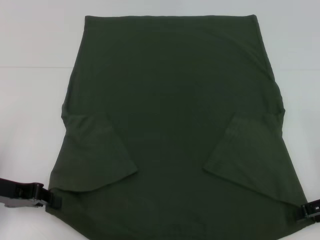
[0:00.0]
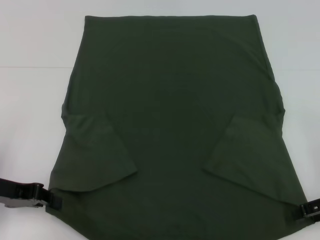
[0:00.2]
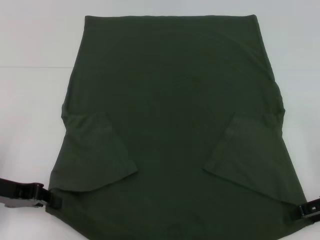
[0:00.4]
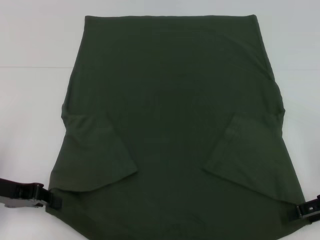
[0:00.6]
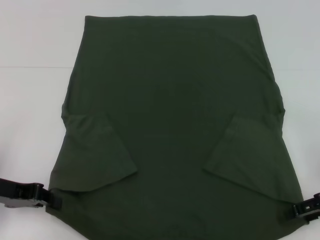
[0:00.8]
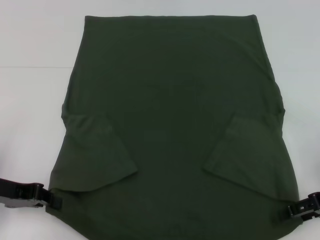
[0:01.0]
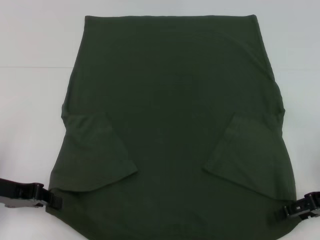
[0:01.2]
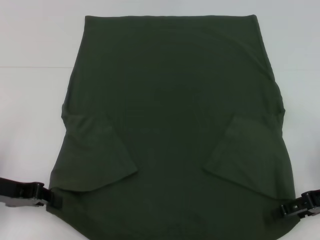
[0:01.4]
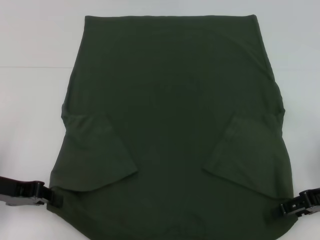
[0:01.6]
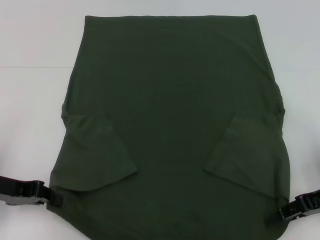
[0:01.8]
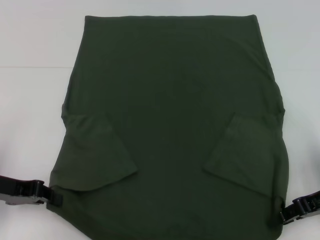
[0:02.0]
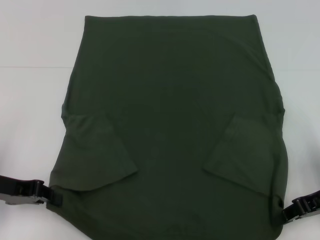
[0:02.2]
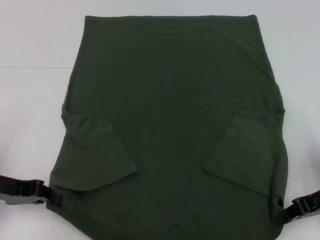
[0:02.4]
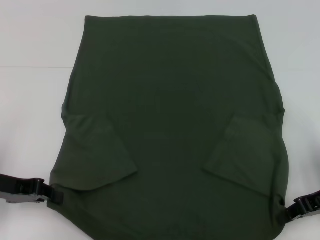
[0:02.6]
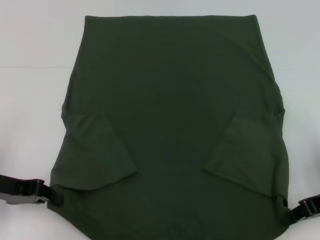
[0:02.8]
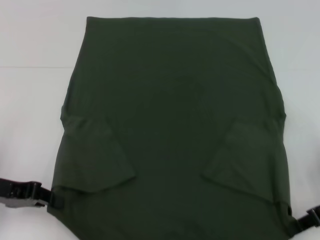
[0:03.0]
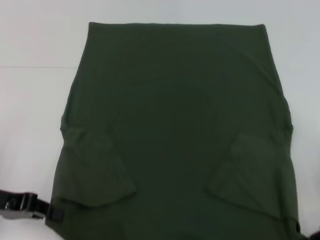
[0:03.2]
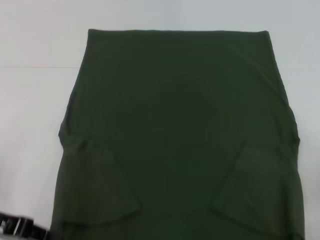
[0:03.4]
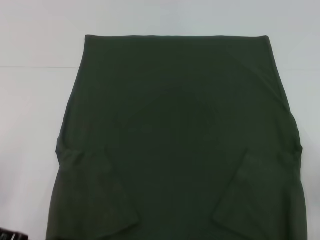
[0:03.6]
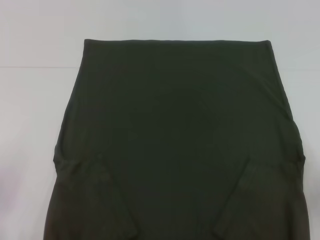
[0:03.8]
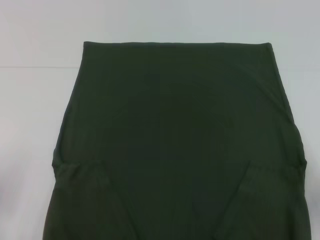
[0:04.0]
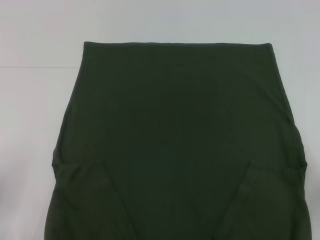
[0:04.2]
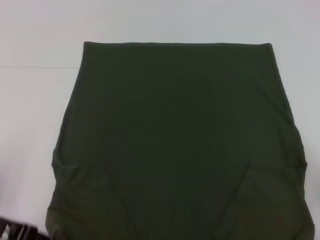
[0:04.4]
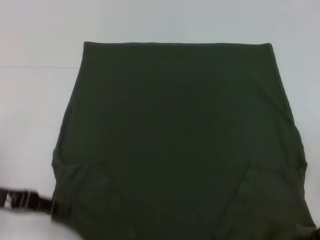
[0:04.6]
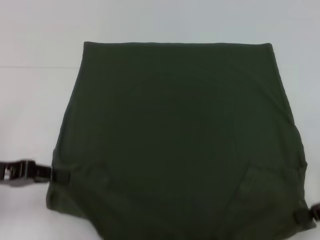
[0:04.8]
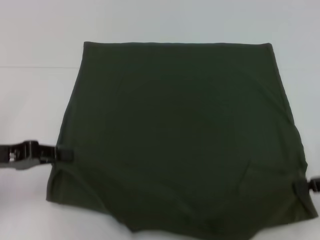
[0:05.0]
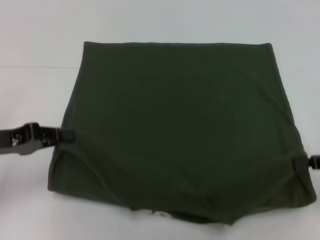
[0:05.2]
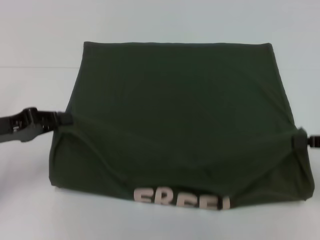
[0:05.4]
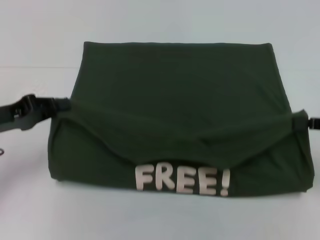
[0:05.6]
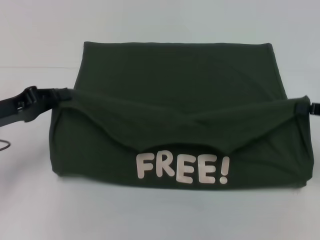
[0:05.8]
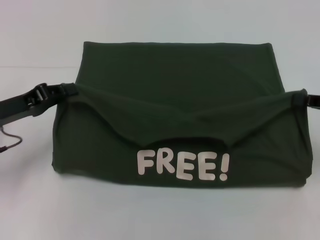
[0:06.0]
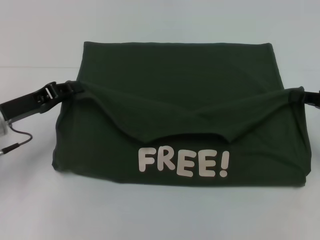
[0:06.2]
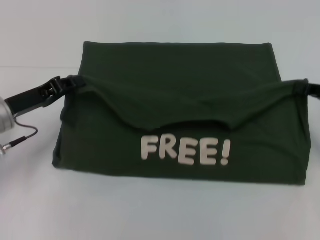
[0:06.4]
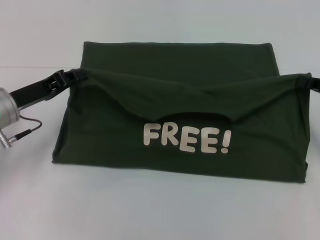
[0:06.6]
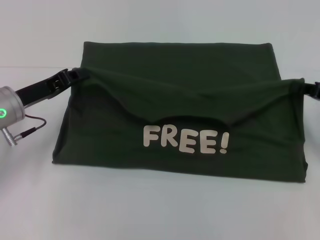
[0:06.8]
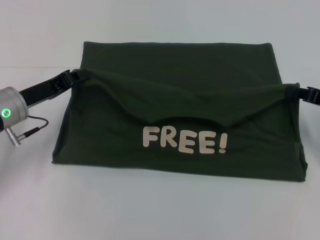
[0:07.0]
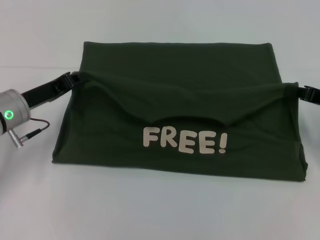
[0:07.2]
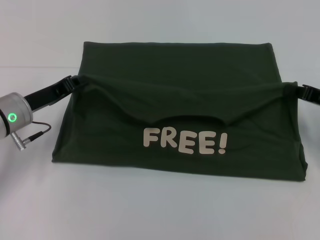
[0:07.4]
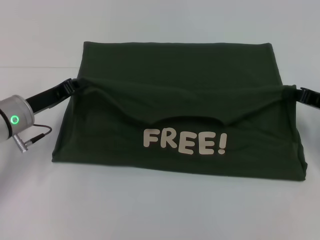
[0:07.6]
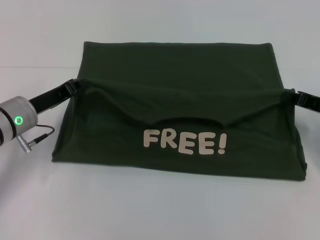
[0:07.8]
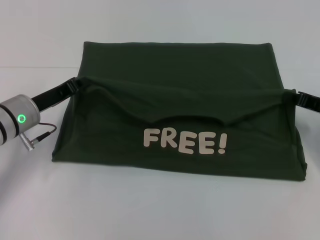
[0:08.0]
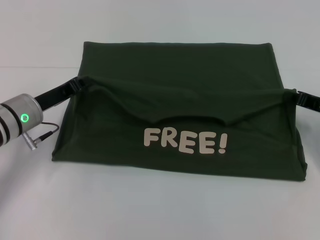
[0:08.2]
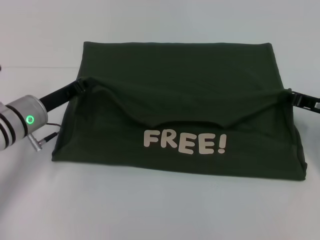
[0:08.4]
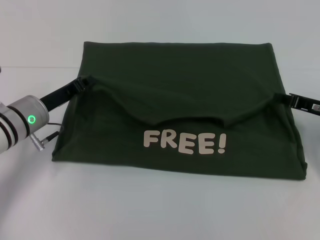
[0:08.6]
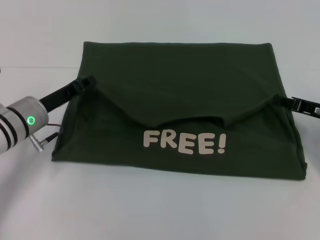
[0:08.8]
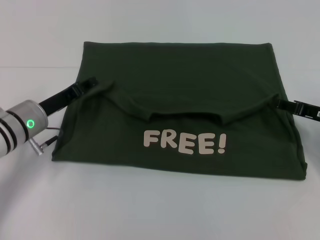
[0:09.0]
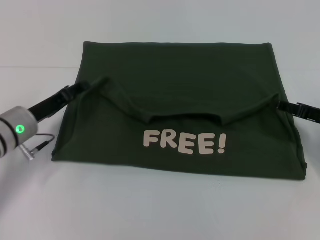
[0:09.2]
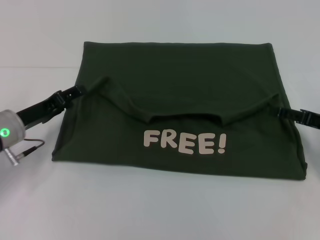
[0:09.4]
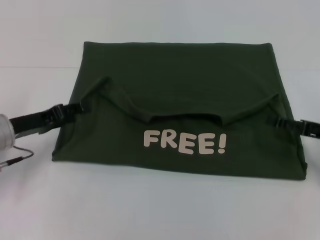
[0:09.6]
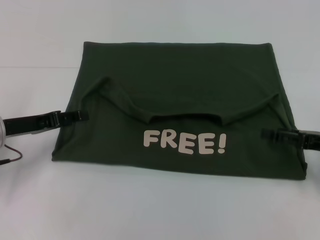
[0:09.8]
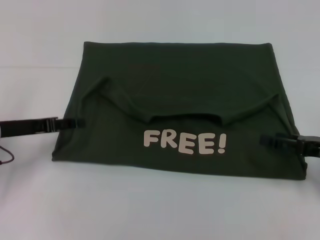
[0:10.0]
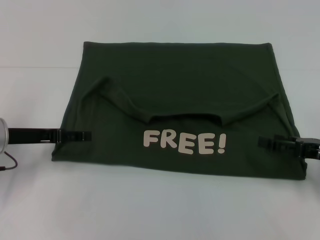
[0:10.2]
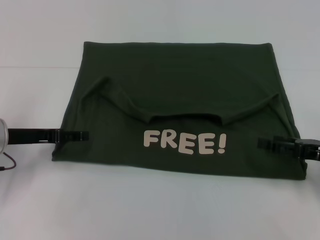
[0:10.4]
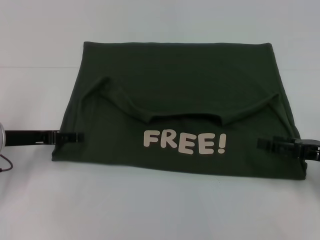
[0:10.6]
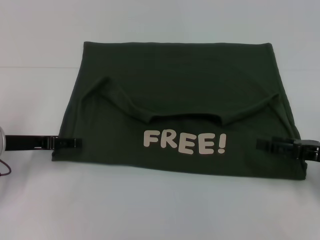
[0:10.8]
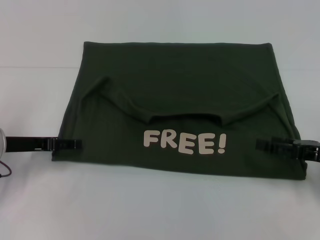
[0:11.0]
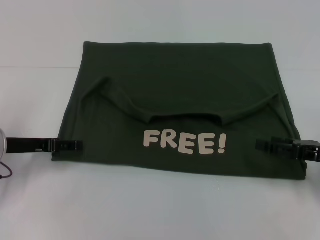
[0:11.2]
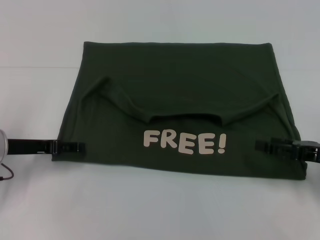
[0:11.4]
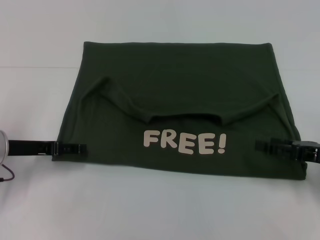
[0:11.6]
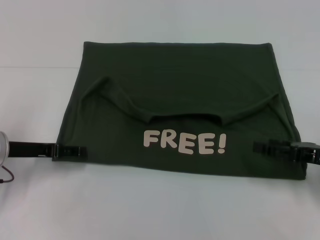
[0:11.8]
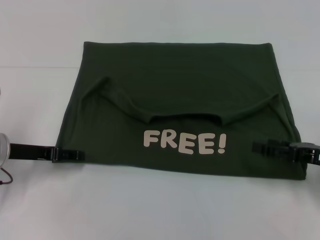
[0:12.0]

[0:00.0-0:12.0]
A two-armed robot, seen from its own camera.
Step, 0:00.0 to 0:02.2: Grab the bottom right corner with your right hand.
Step, 0:02.4 to 0:09.2: Fold the clothes with your left hand.
Step, 0:02.4 to 0:09.2: Fold the clothes with your right hand.
0:00.0 to 0:01.6: The grippers stay close to where they were, moving slightly.
0:01.6 to 0:03.0: The right gripper closes up.
0:04.4 to 0:06.0: Both grippers move forward, roughly 5 cm.
0:06.0 to 0:07.6: The left gripper ends up some 5 cm from where it was. Meanwhile the right gripper moves some 5 cm.
0:07.6 to 0:09.0: The right gripper opens.
0:09.0 to 0:10.4: The left gripper heads to the left, covering about 5 cm, and opens. Meanwhile the right gripper travels backward by some 5 cm, and opens its fingers.
0:10.4 to 0:12.0: The grippers make only small movements.

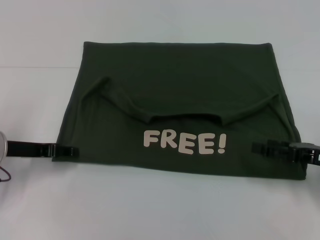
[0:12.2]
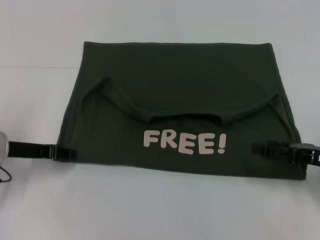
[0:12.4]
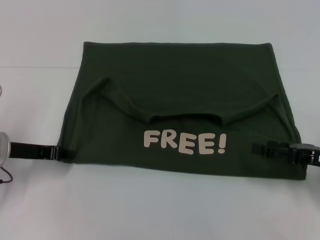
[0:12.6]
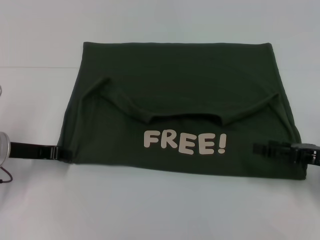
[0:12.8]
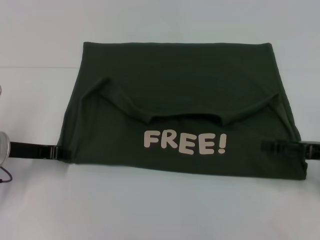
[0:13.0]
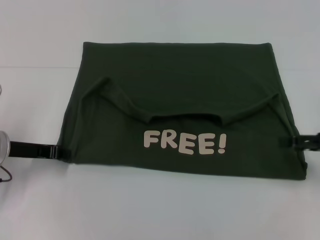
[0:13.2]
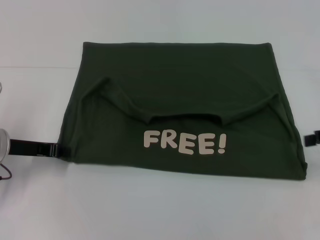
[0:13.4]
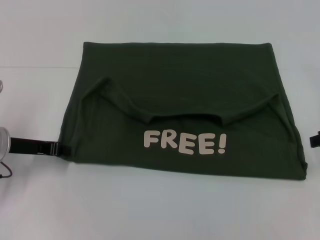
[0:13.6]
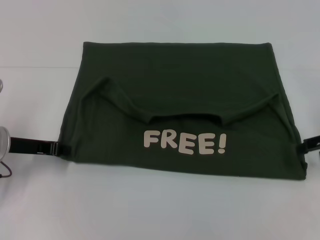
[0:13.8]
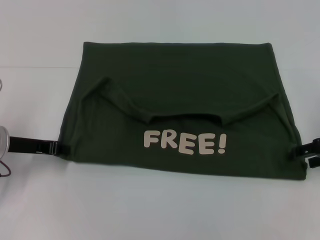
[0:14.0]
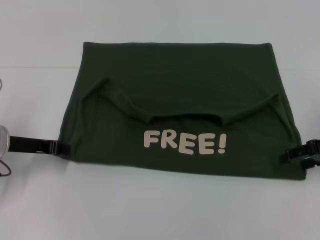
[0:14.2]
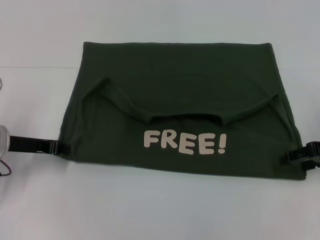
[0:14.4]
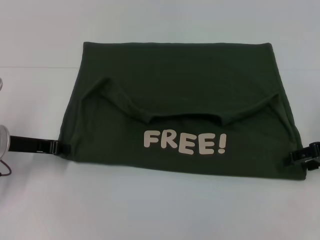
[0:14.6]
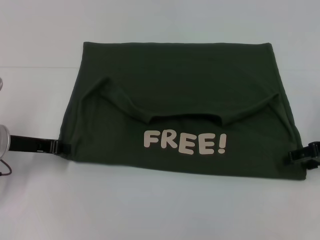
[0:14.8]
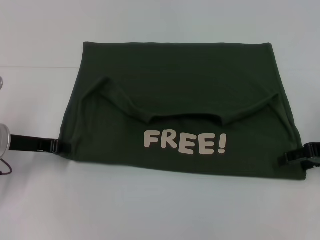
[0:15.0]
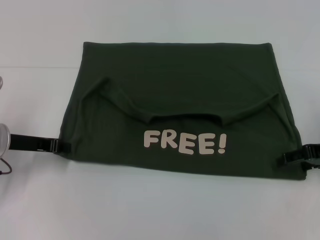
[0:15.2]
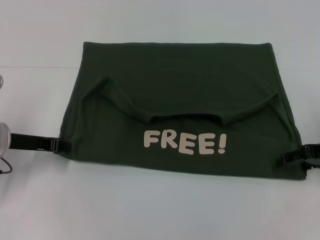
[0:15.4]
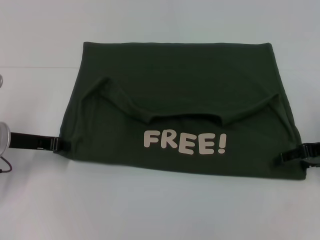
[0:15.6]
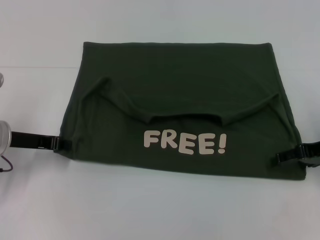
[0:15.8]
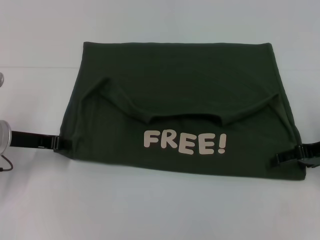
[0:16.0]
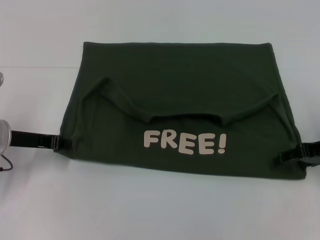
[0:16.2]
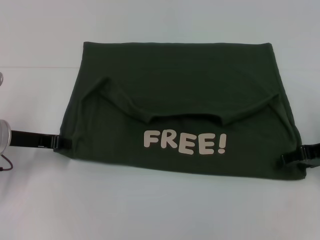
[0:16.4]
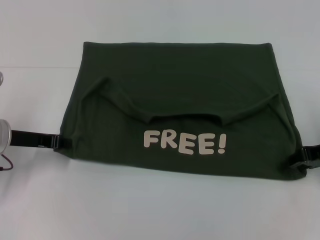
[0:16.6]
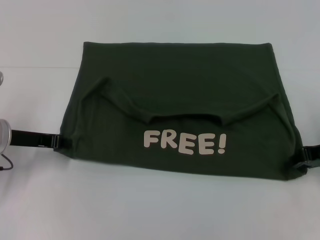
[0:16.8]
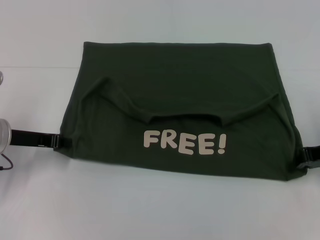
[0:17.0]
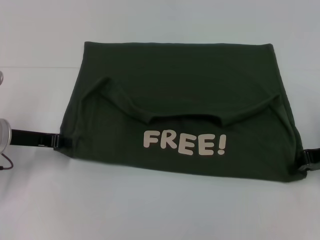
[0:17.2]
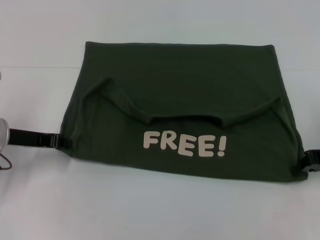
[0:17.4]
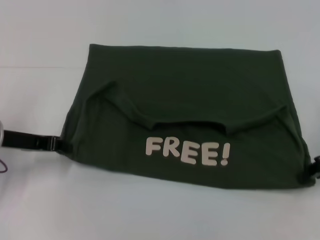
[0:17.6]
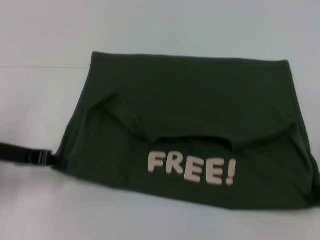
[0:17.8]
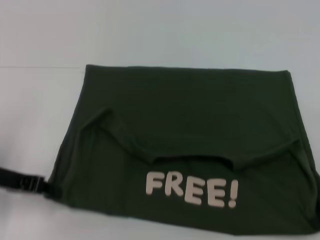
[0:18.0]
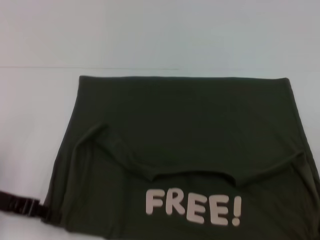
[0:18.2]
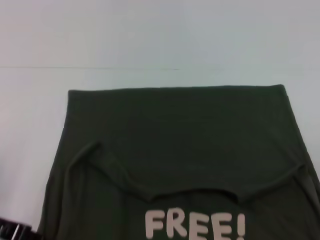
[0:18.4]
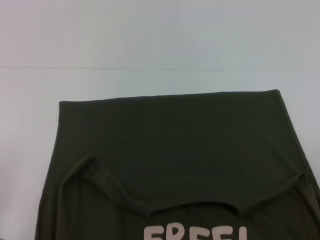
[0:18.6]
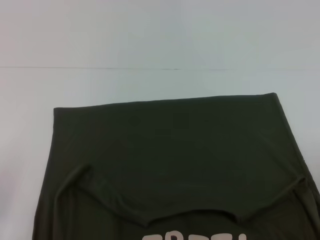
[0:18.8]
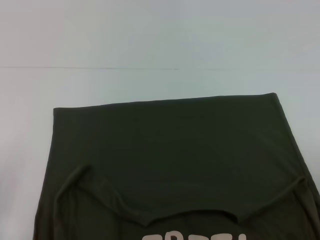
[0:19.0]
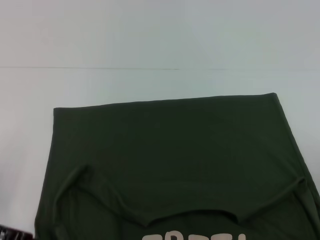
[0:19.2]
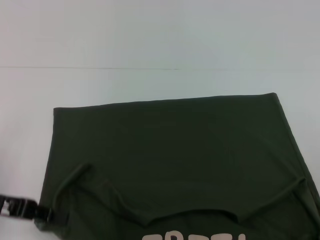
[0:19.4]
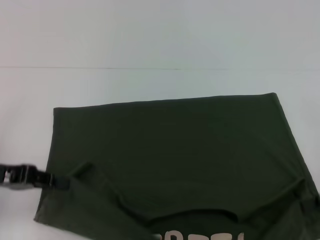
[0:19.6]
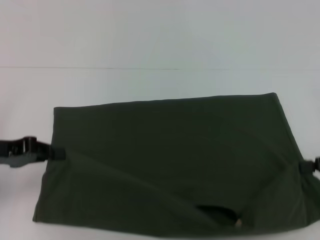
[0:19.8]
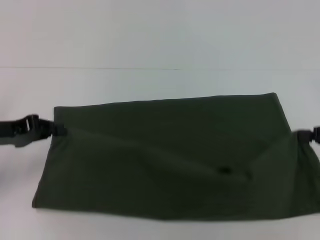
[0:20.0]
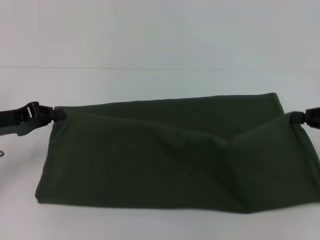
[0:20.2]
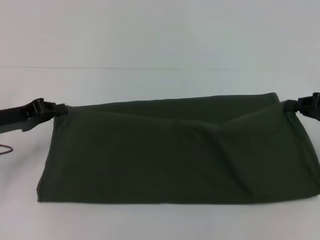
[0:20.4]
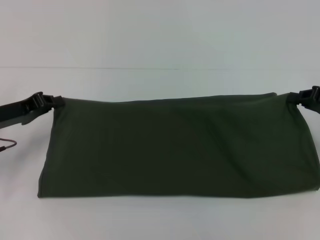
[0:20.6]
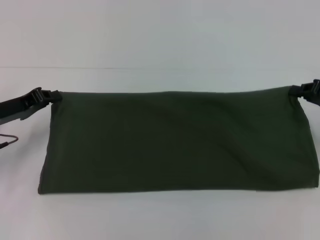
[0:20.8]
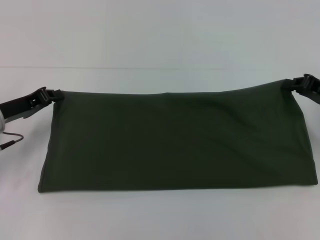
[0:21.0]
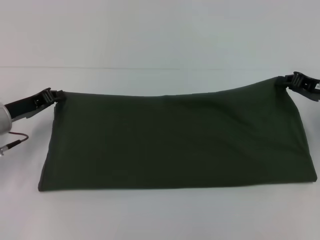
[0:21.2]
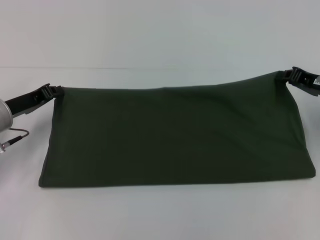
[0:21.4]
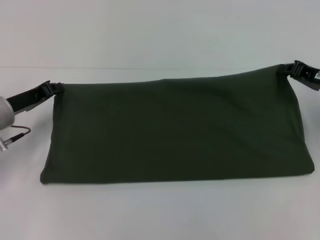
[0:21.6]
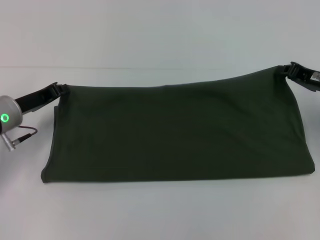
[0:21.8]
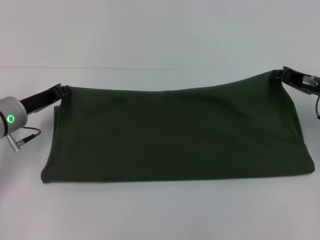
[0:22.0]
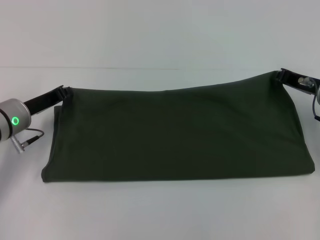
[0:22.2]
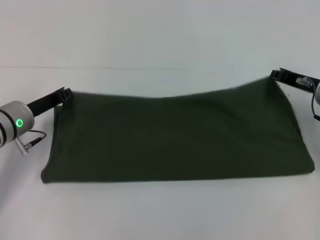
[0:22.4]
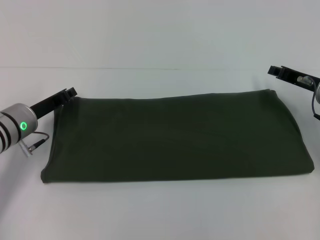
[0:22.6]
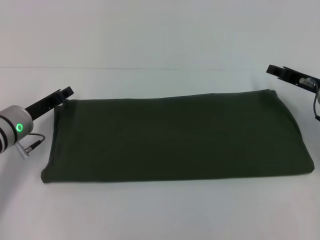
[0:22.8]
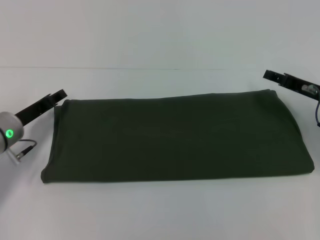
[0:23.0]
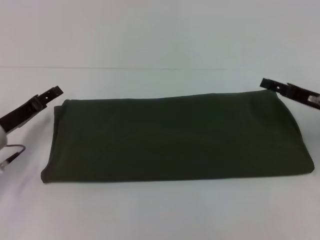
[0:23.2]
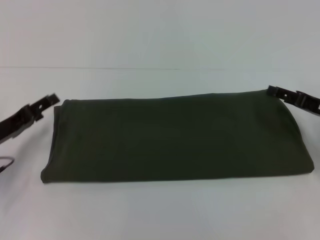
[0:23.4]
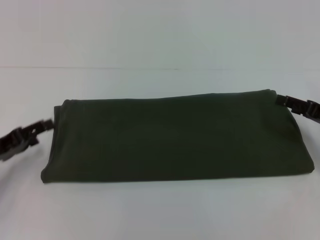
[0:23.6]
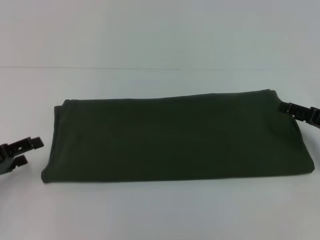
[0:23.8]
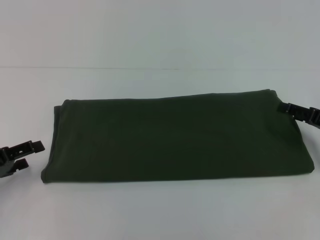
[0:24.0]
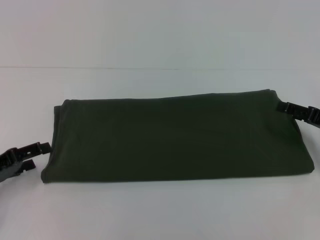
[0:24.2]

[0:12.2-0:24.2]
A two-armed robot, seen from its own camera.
Step, 0:12.2 to 0:18.8: Pull the clothes with your left hand.
Step, 0:12.2 to 0:18.8: Pull the clothes with your right hand.
Step, 0:19.0 to 0:23.2: Fold the clothes with your right hand.
0:12.2 to 0:13.8: The right gripper moves upward and forward, some 10 cm; the left gripper closes its fingers.
0:13.8 to 0:15.2: The grippers stay close to where they were, moving slightly.
0:15.2 to 0:16.6: Both grippers stay about where they are.
0:16.6 to 0:18.2: The two grippers go approximately 5 cm backward. The right gripper closes.
0:19.8 to 0:21.2: The left gripper moves forward, some 5 cm. The right gripper is displaced forward and to the left by about 10 cm.
0:21.2 to 0:22.6: The grippers move only a little.
0:22.6 to 0:24.2: The left gripper travels backward and to the left by some 15 cm, and opens up. The right gripper goes approximately 10 cm backward and to the right, and opens its fingers.
